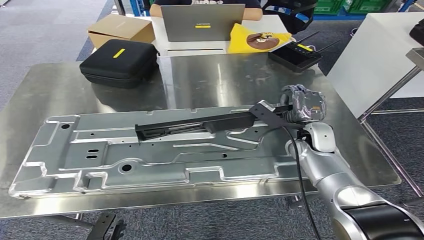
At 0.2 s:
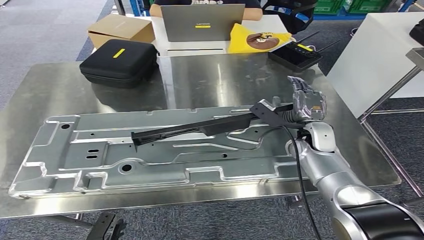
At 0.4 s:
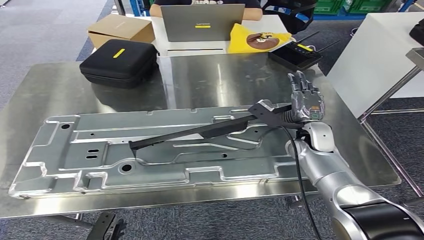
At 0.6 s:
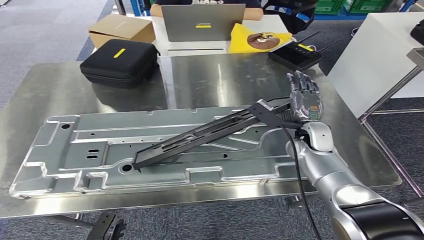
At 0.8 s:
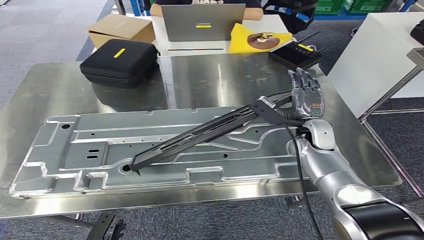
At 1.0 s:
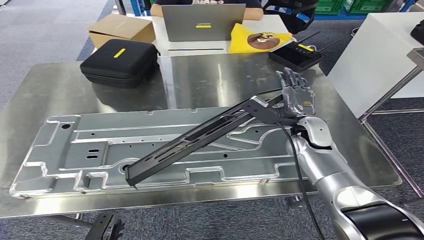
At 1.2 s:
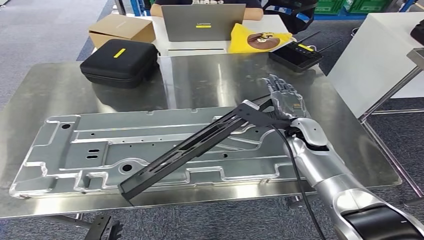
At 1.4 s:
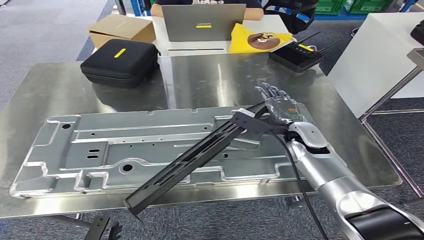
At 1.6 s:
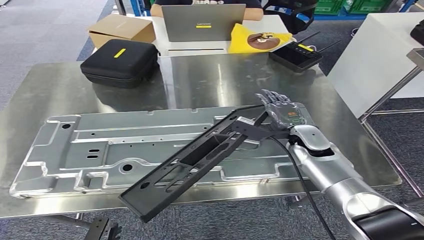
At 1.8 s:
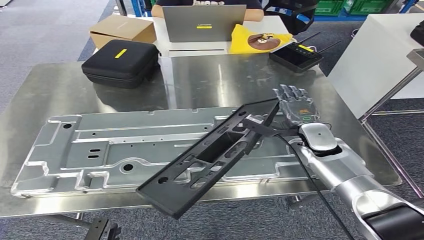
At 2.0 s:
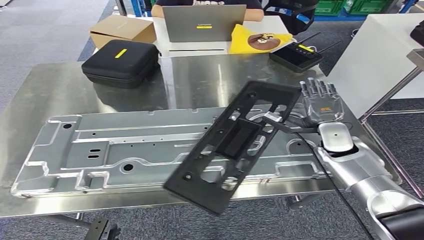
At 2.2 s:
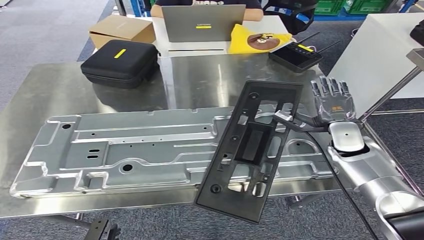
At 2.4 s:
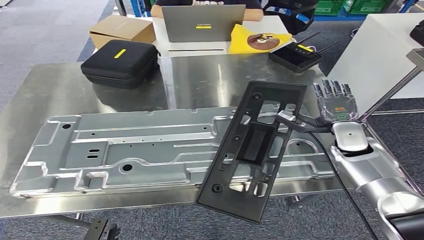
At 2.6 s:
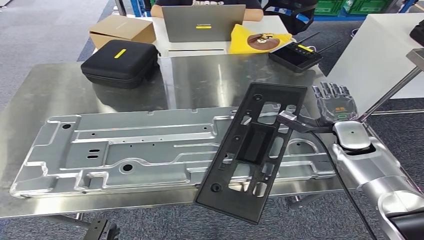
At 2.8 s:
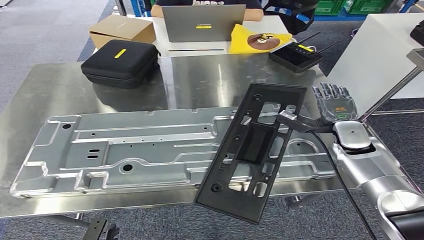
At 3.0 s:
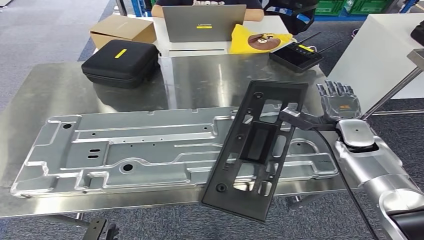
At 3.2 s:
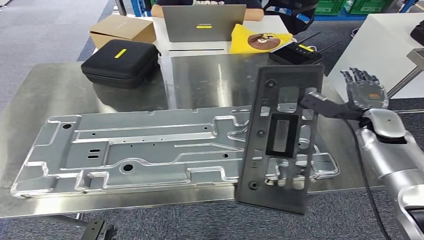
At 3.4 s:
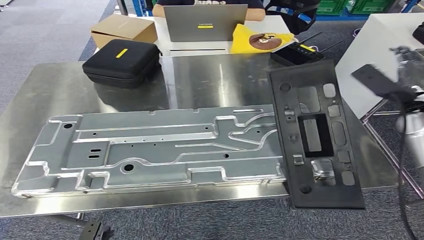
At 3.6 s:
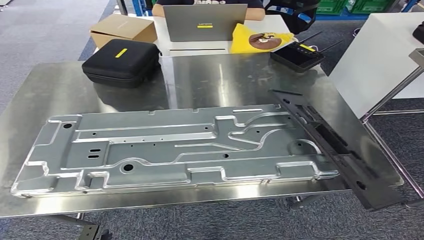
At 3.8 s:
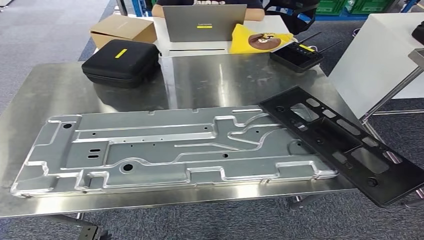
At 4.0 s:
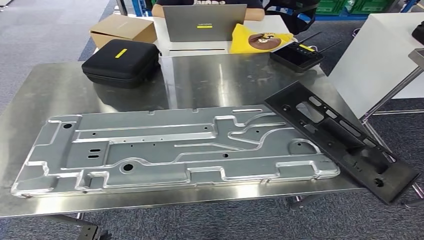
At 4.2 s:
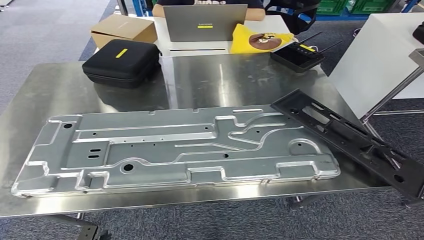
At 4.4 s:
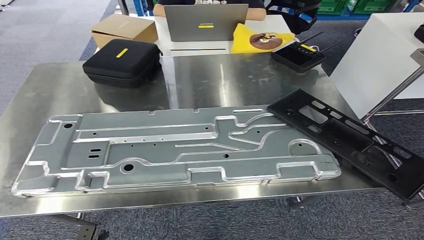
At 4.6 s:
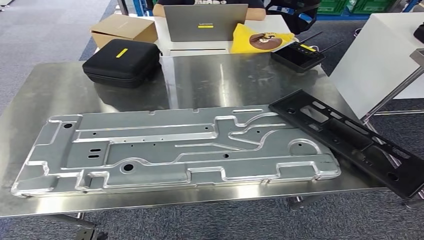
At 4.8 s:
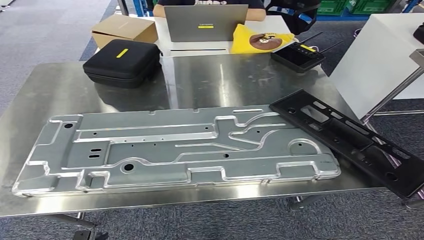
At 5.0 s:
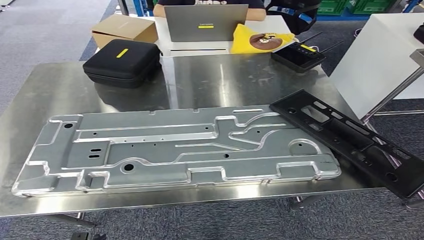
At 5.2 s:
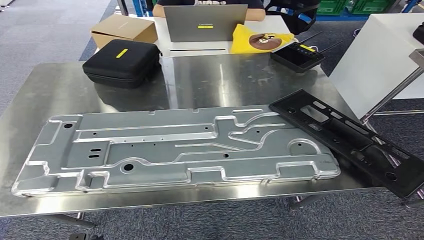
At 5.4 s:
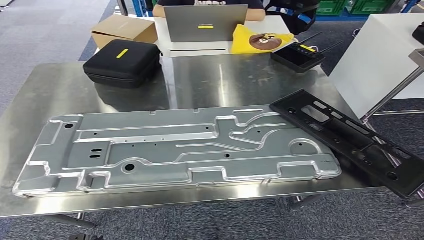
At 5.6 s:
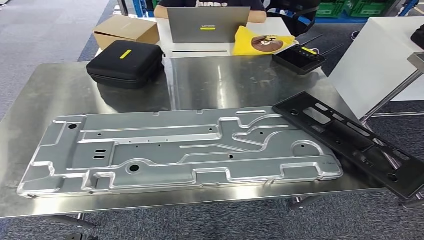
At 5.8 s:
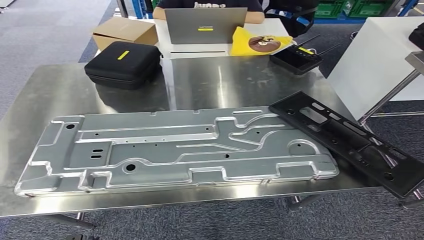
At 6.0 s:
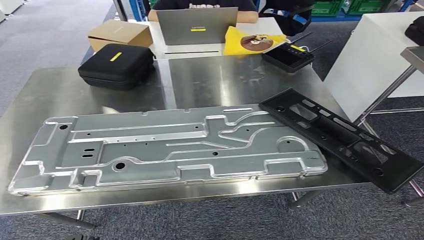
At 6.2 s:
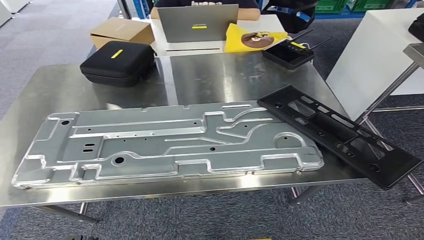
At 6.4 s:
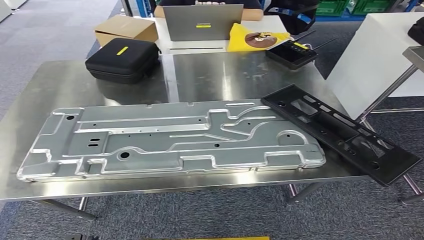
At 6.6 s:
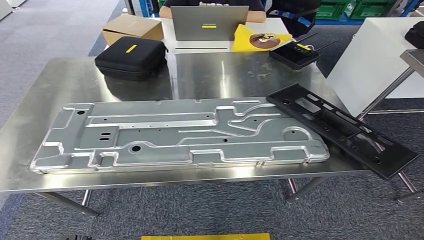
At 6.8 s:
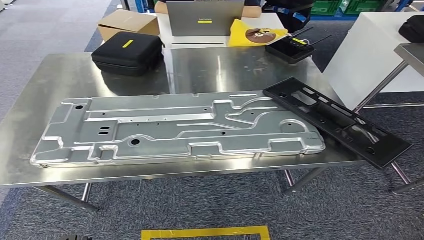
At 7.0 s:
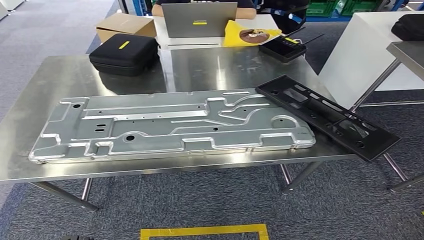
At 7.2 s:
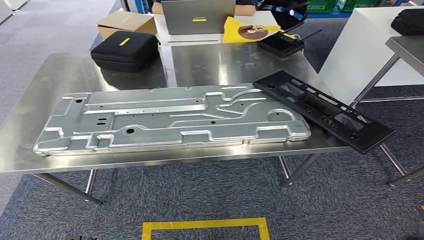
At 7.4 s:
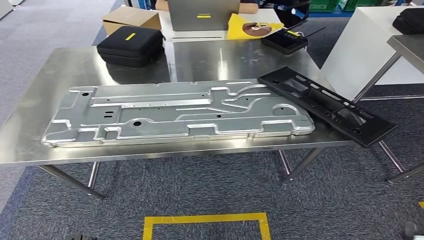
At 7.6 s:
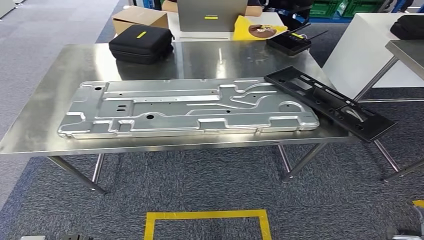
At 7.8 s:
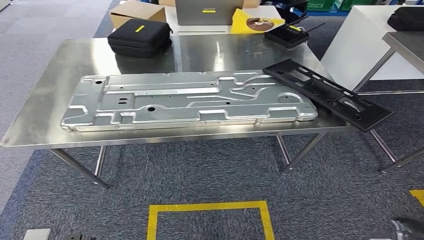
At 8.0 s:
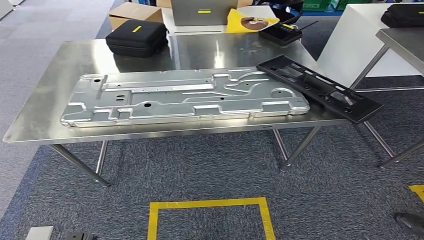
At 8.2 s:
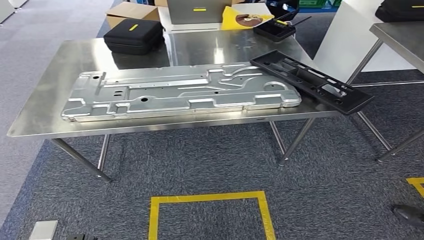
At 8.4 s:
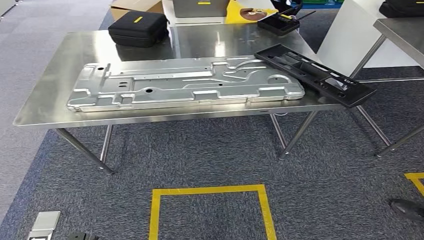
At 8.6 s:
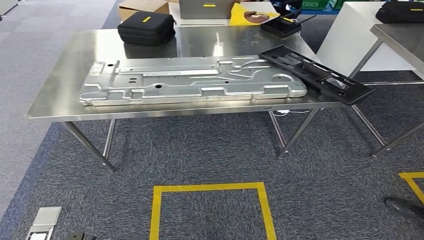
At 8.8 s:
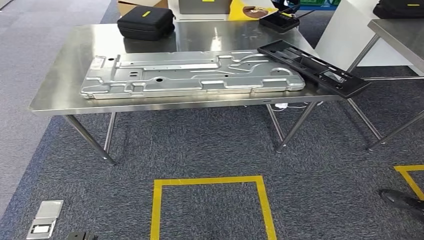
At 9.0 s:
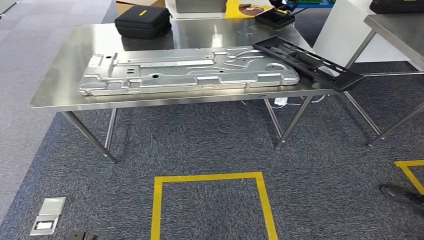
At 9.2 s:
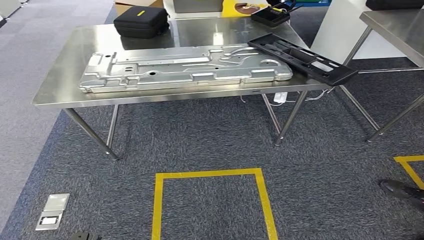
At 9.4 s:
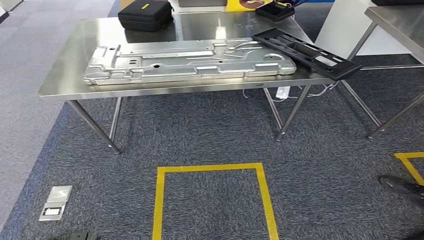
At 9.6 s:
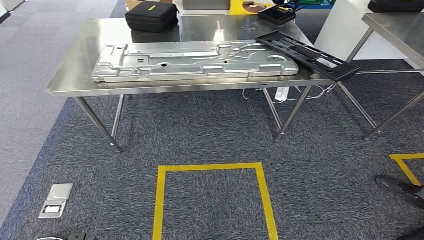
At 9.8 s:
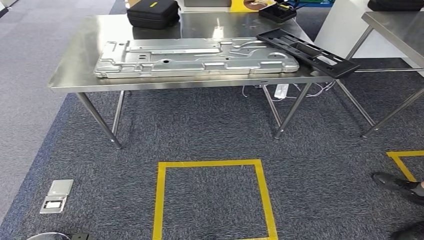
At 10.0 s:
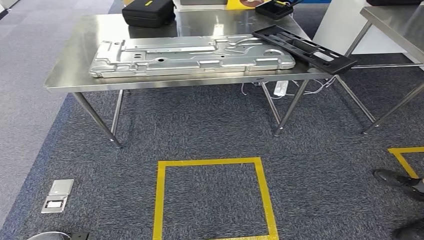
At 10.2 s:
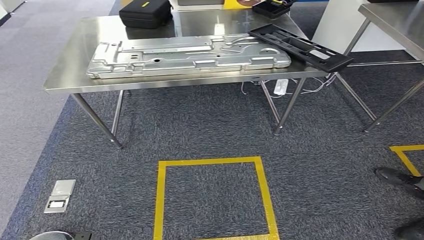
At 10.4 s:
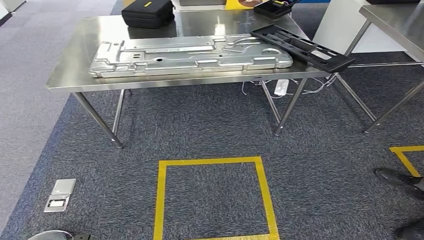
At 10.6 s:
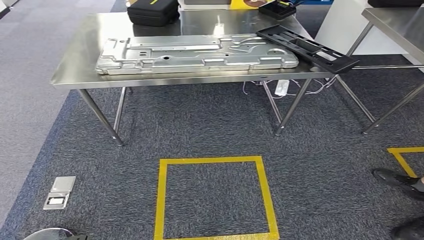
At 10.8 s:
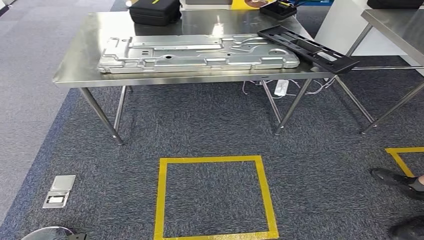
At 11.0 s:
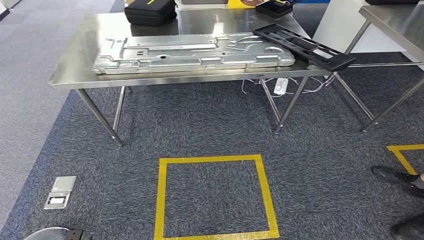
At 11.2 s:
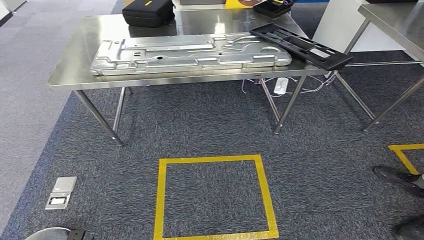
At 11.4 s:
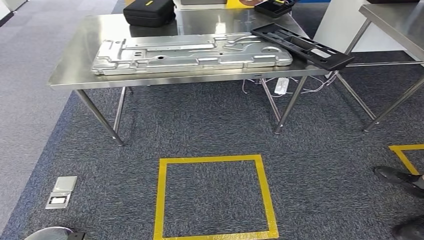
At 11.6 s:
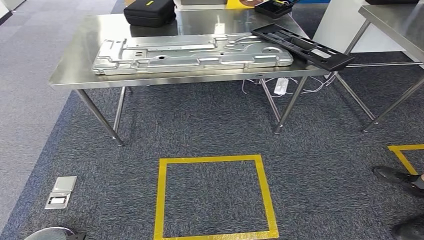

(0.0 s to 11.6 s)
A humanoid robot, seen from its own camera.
Step, 0.0 s - 3.8 s: Insert the large material into the corresponding slot on the workbench.
Step, 4.6 s - 11.6 s: Move to the initial position of the shelf.
4.4 s - 5.8 s: The right hand is displaced backward, to the left and downward by roughly 25 cm.
10.2 s - 11.6 s: The hands stay close to where they were, moving slightly.
